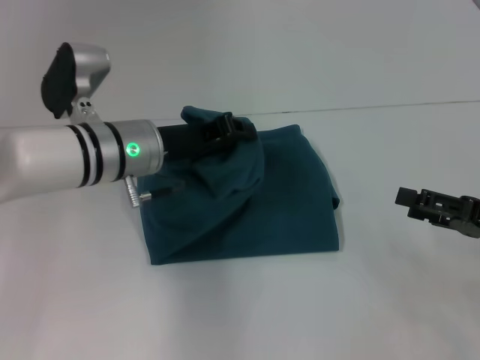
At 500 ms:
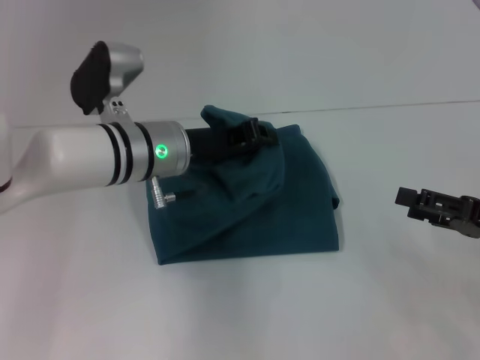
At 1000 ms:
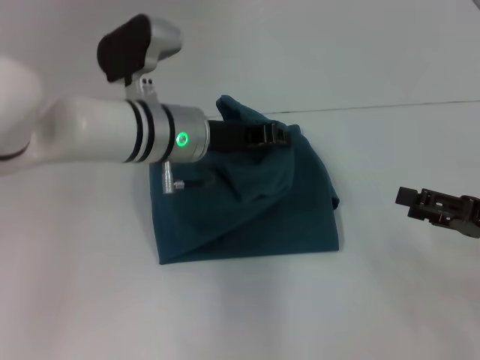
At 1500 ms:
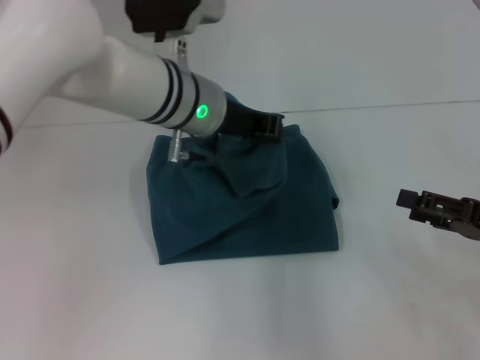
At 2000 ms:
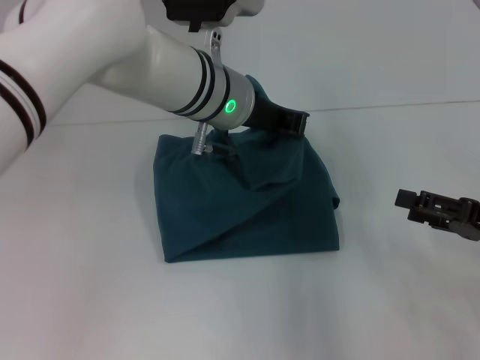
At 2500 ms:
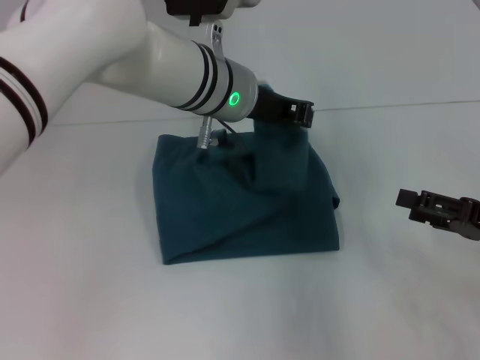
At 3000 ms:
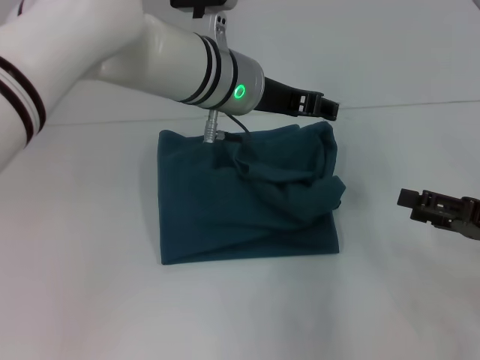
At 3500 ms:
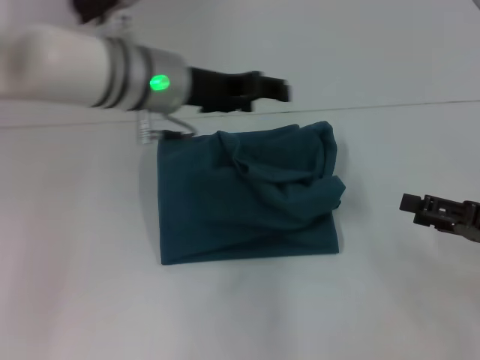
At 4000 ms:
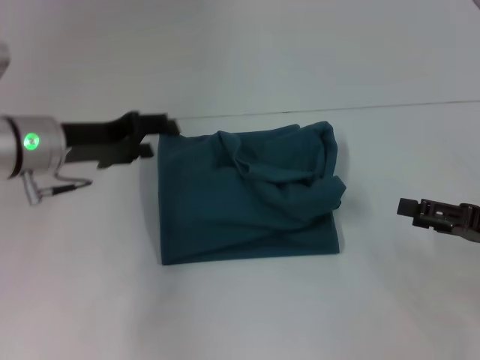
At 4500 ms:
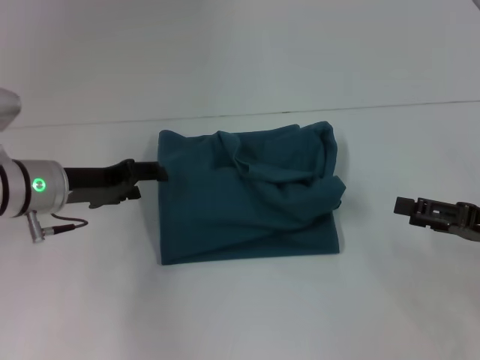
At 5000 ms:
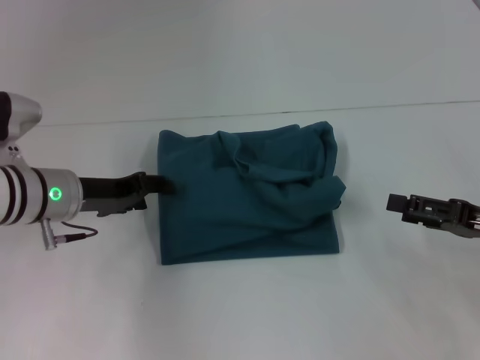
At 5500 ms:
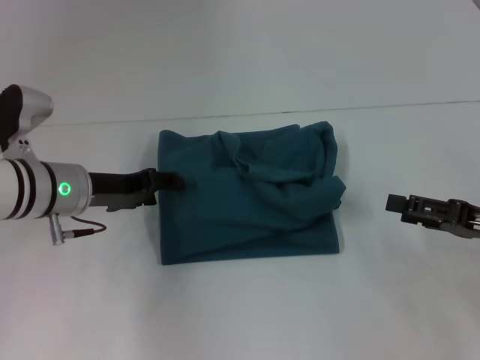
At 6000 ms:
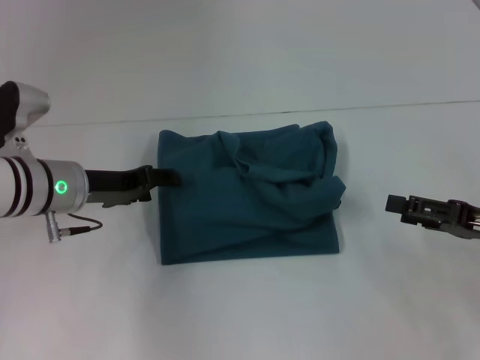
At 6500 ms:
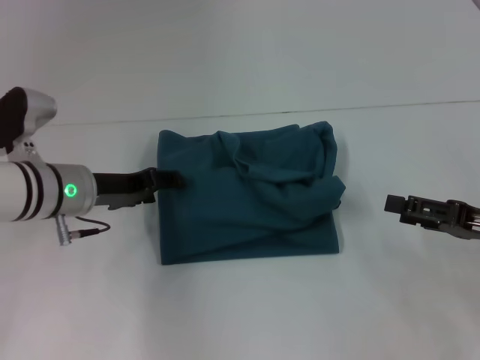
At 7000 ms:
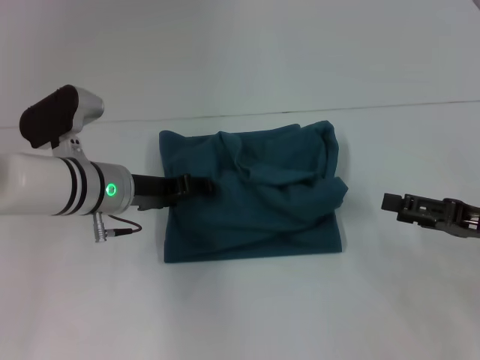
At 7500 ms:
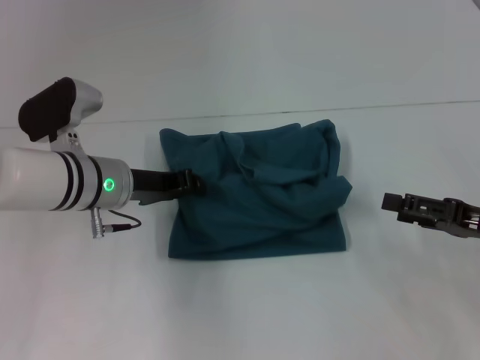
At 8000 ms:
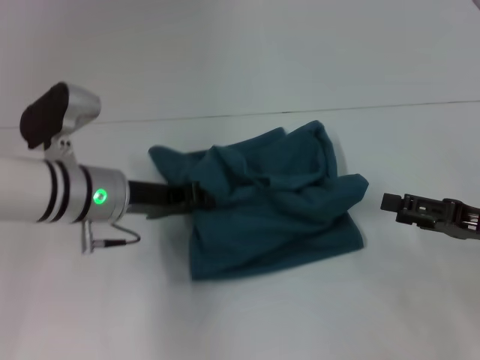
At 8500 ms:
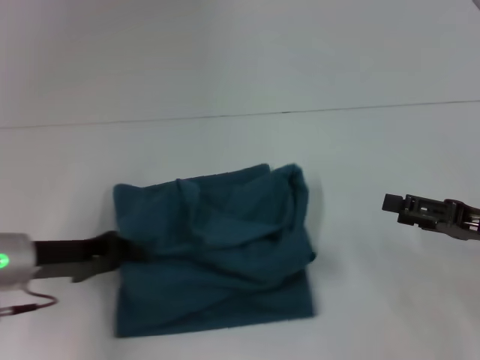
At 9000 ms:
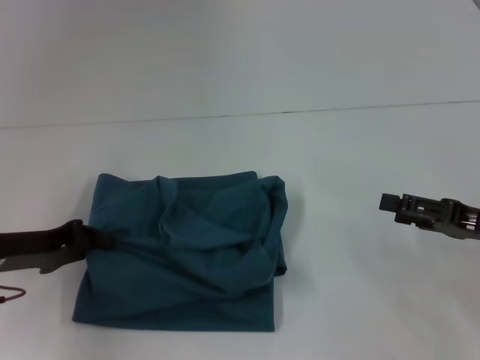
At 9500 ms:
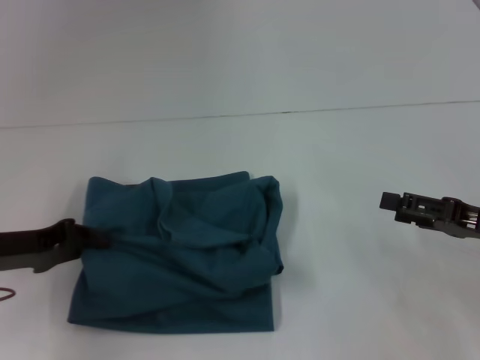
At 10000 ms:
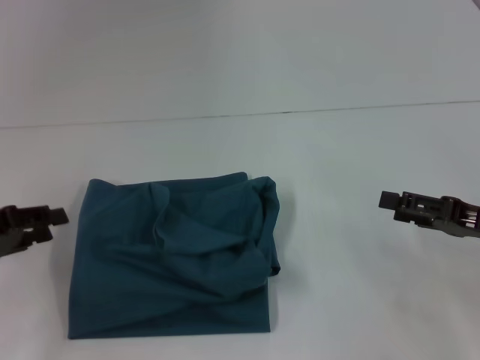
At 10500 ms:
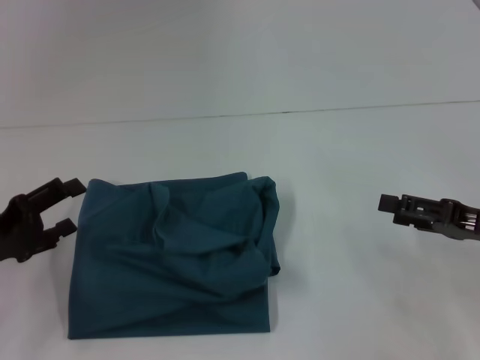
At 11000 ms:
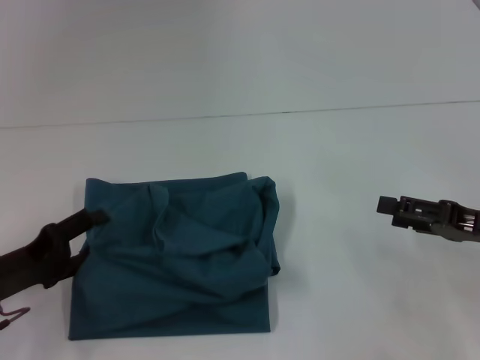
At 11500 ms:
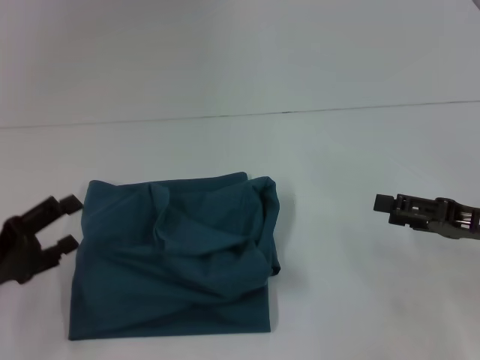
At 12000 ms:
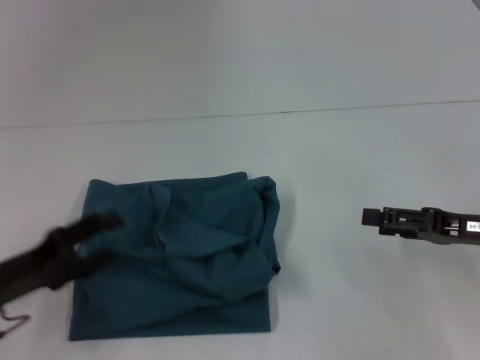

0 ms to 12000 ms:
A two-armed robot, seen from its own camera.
Step, 0 ms to 3000 ms: Fold the clothes to the left.
0 ms to 2000 ms: The left gripper moves to the right and upward, some 10 cm.
2000 ms to 4000 ms: The left gripper heads to the left, covering some 20 cm, and opens.
4000 ms to 6000 ms: The left gripper travels downward by about 5 cm.
6000 ms to 8000 ms: The left gripper closes.
8000 ms to 10000 ms: The left gripper is displaced to the left and backward by approximately 20 cm.
10000 ms to 12000 ms: The left gripper travels downward by some 5 cm, and opens up.

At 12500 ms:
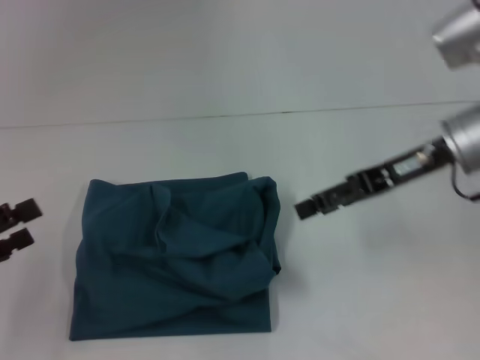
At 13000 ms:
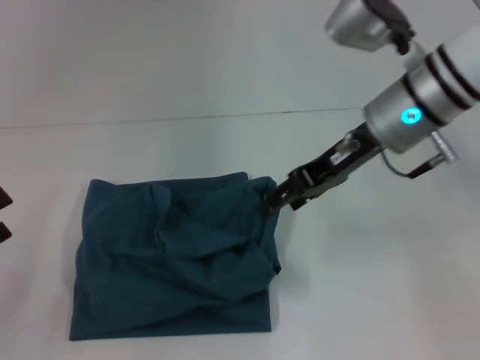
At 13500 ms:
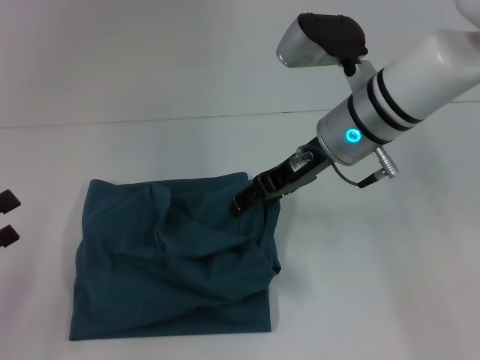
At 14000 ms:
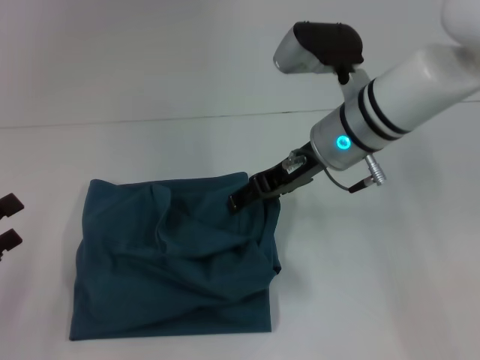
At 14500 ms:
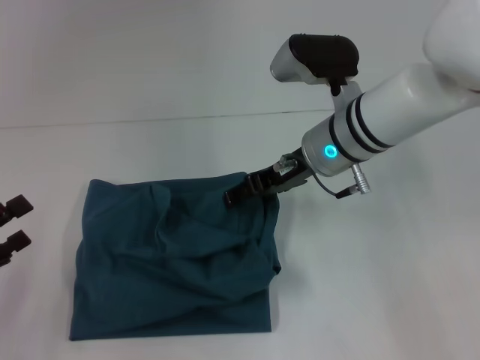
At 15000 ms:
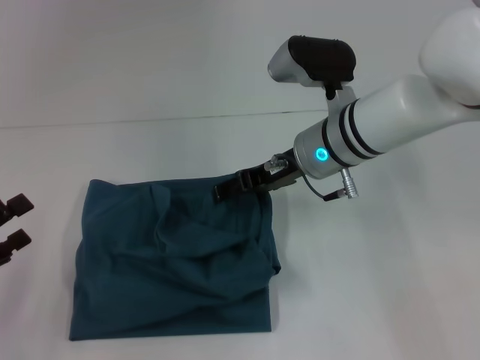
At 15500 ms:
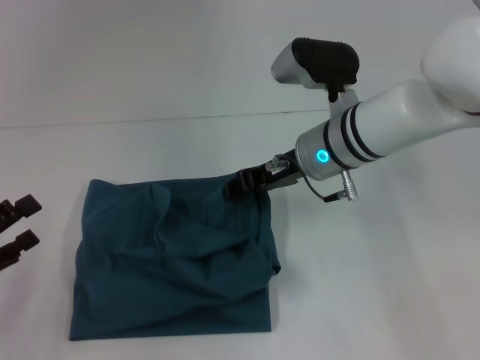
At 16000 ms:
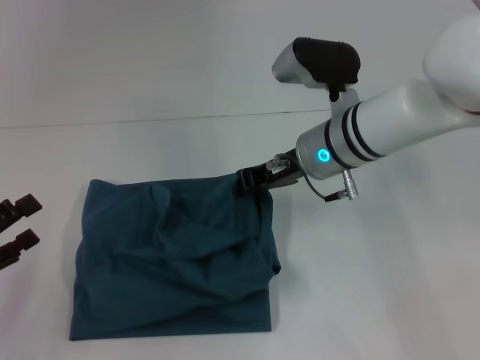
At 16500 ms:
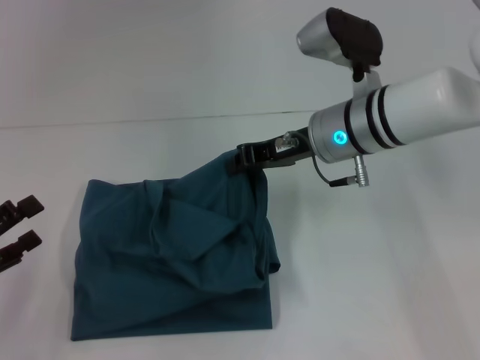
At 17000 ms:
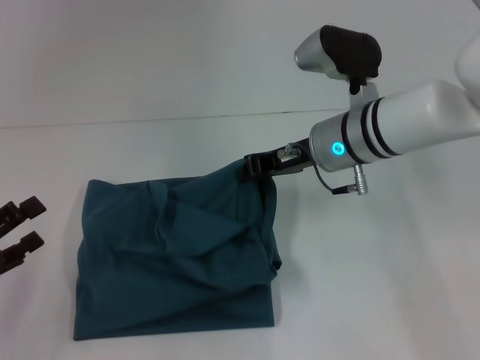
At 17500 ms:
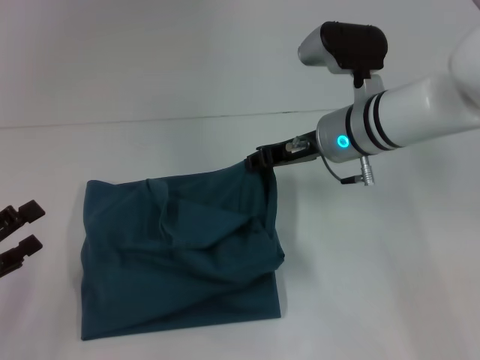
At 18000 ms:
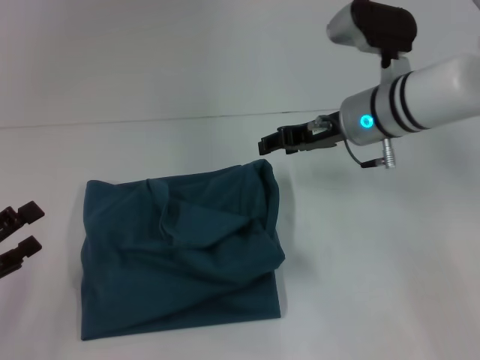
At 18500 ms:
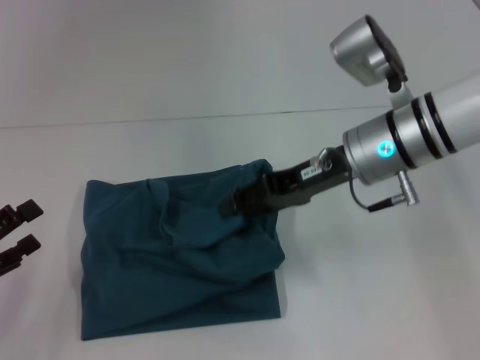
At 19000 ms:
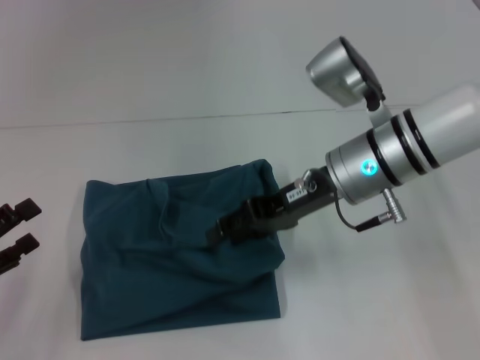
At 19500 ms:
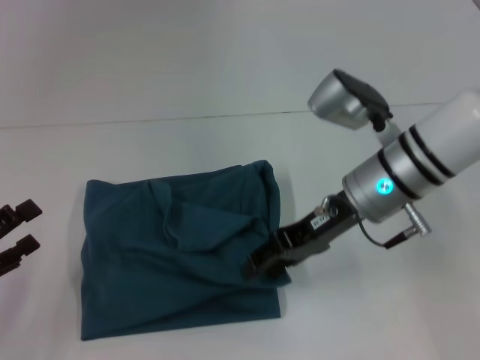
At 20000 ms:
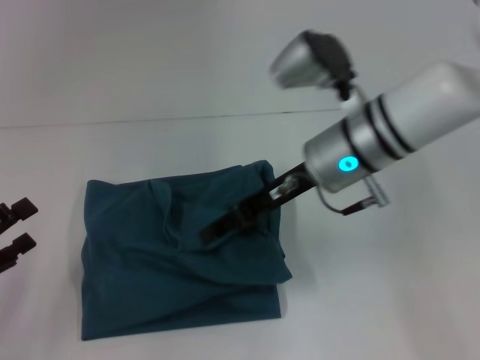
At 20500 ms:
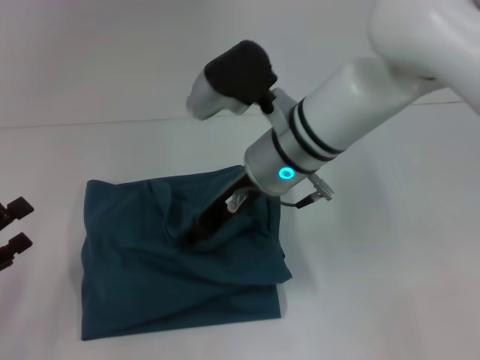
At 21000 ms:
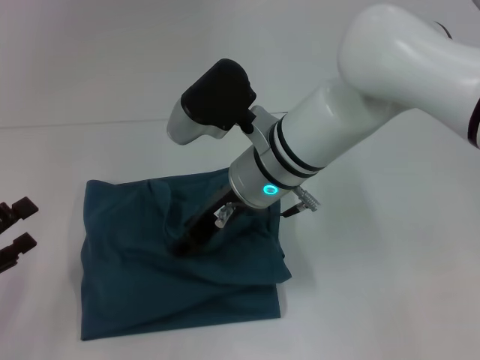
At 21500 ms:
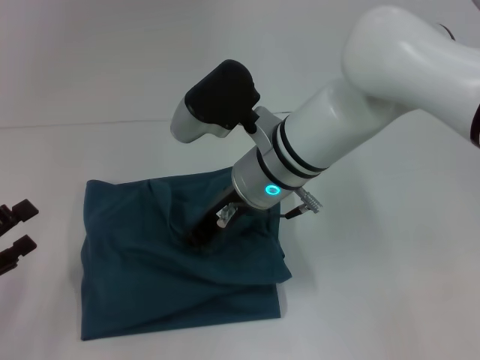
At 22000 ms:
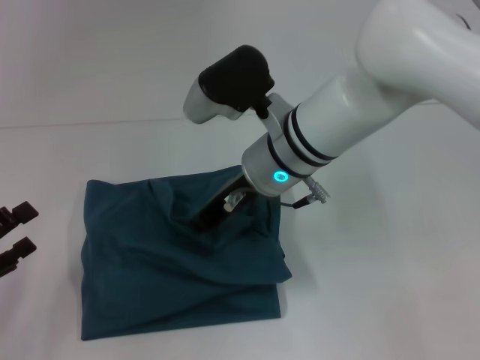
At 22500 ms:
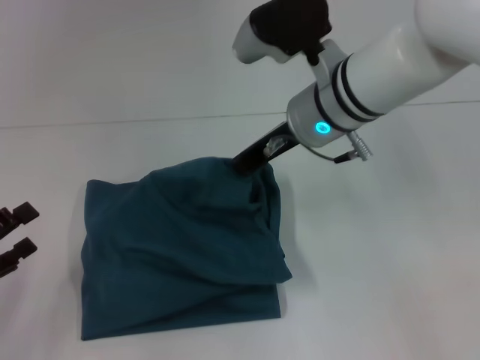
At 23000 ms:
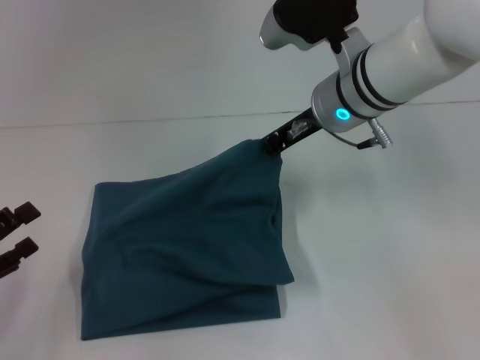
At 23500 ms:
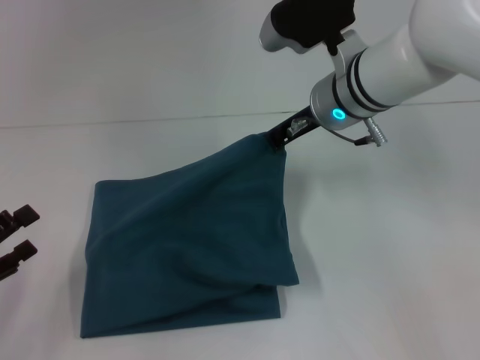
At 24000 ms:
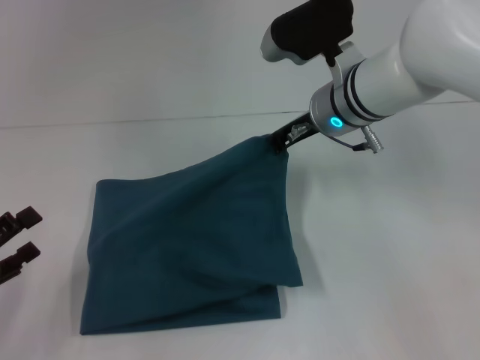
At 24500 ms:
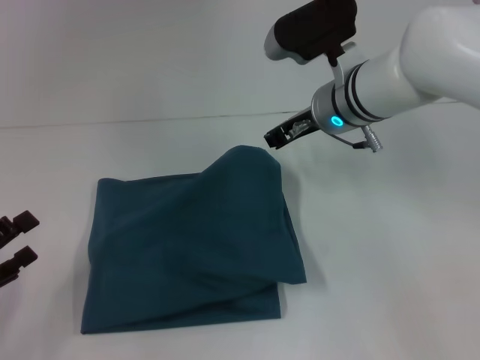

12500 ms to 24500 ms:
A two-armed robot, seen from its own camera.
12500 ms to 14500 ms: The right gripper heads to the left, covering about 10 cm.
14500 ms to 16500 ms: The right gripper closes its fingers.
16500 ms to 18500 ms: The right gripper opens.
18500 ms to 20500 ms: The right gripper is displaced to the left by some 10 cm.
20500 ms to 22500 ms: The right gripper ends up roughly 5 cm from where it was, and closes its fingers.
22500 ms to 24500 ms: The right gripper ends up about 5 cm from where it was.

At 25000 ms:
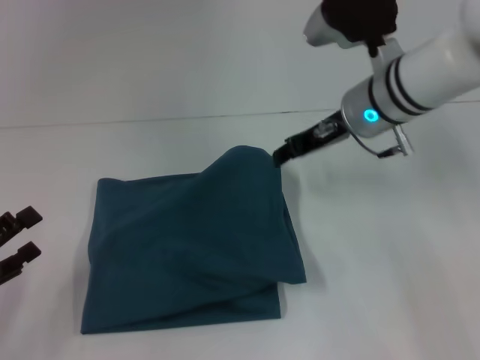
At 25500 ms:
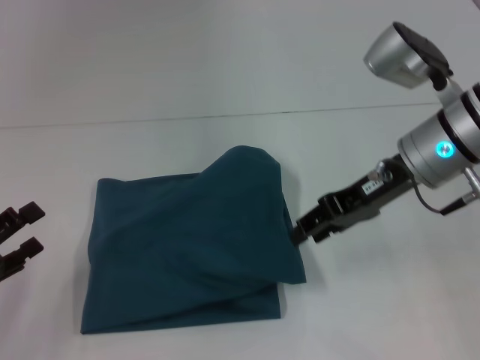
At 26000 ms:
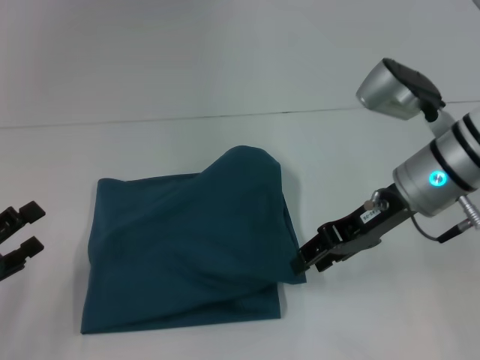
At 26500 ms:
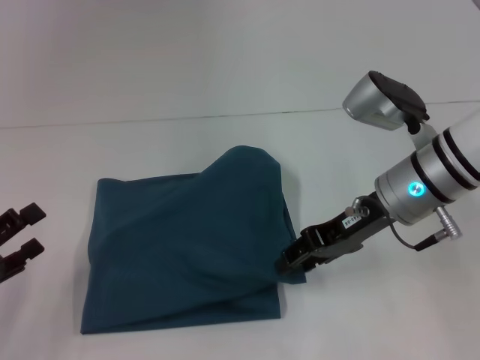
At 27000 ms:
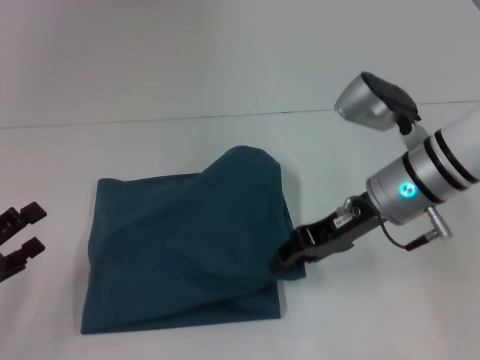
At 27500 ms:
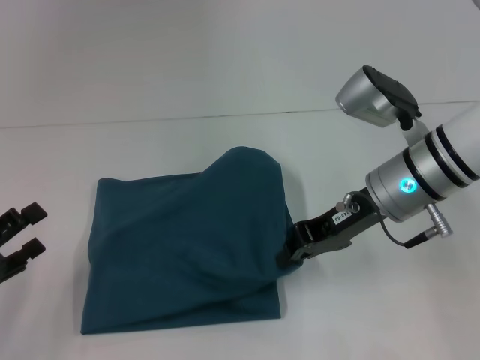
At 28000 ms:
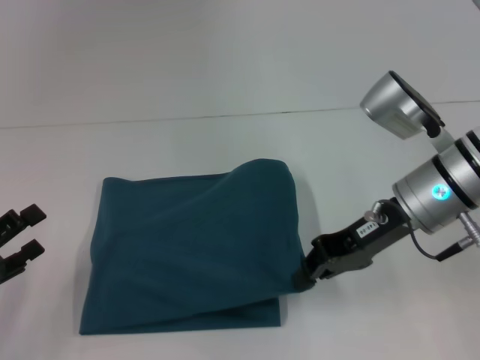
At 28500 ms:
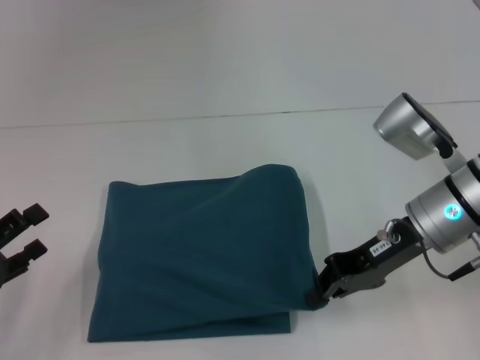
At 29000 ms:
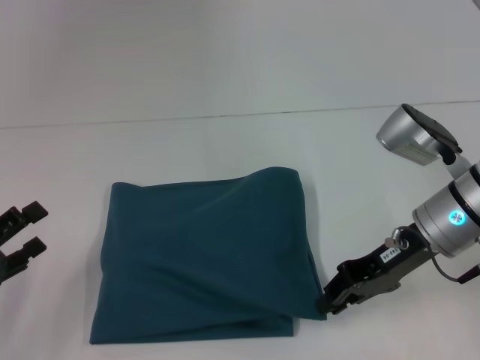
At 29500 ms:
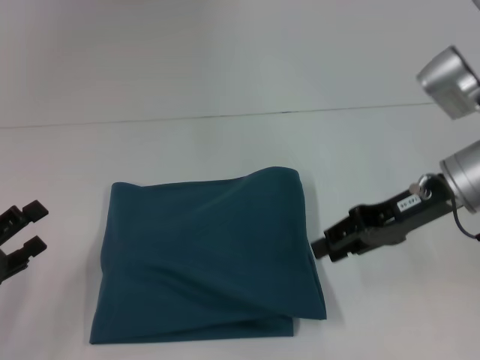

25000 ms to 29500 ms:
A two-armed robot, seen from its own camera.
25000 ms to 27000 ms: The right gripper heads backward, covering roughly 5 cm.
27000 ms to 29500 ms: The right gripper goes about 5 cm to the right, and closes, then opens again.
